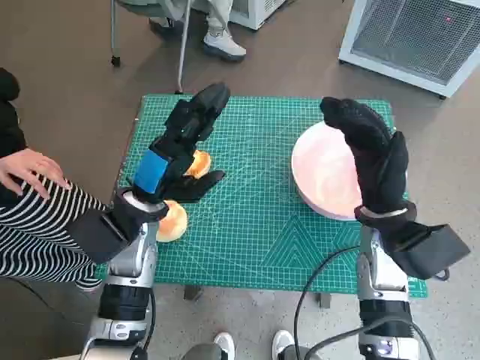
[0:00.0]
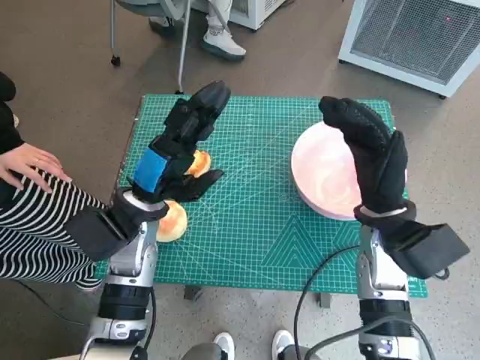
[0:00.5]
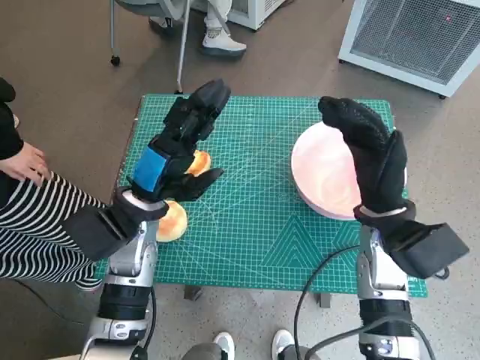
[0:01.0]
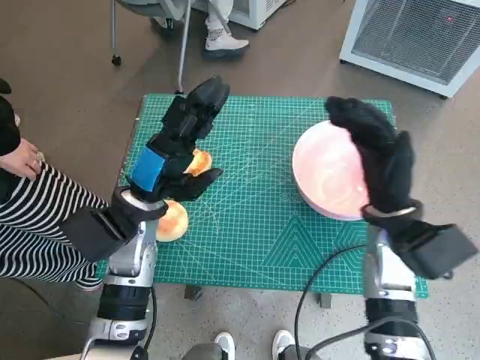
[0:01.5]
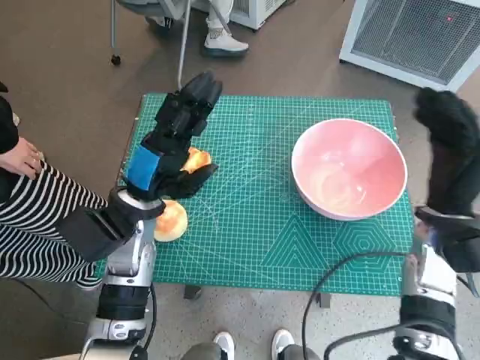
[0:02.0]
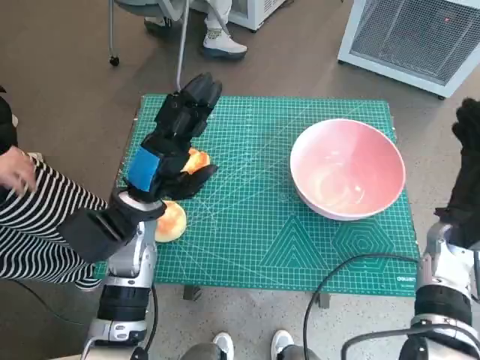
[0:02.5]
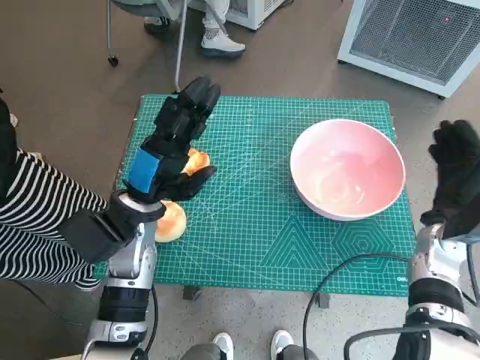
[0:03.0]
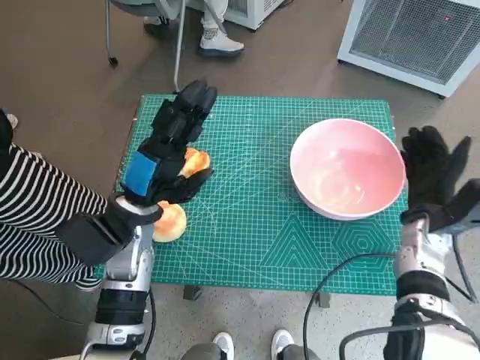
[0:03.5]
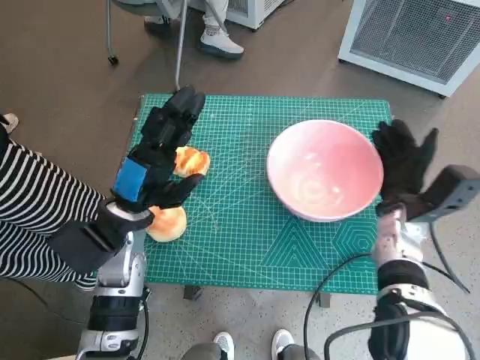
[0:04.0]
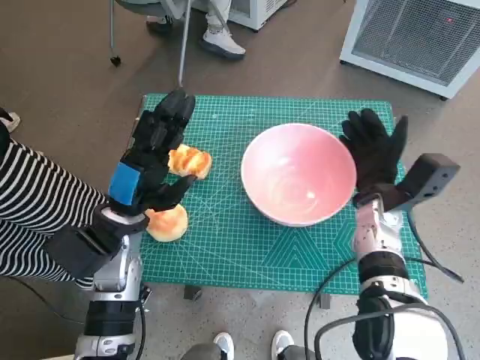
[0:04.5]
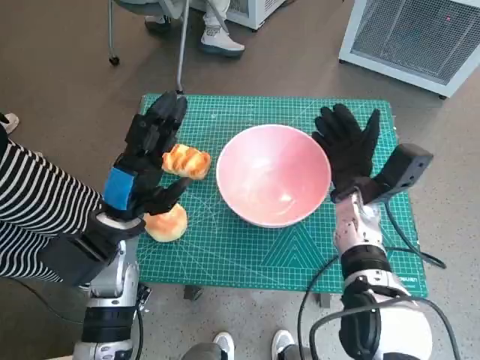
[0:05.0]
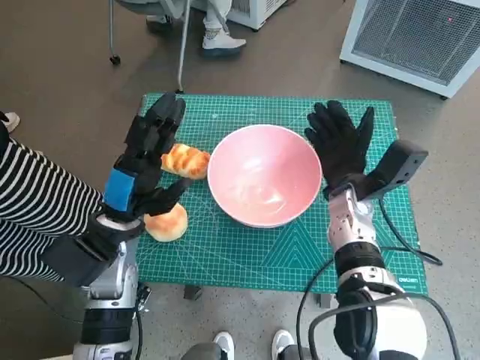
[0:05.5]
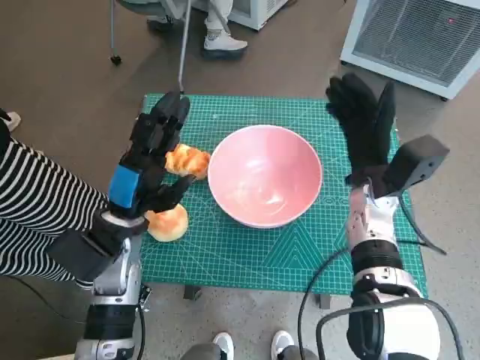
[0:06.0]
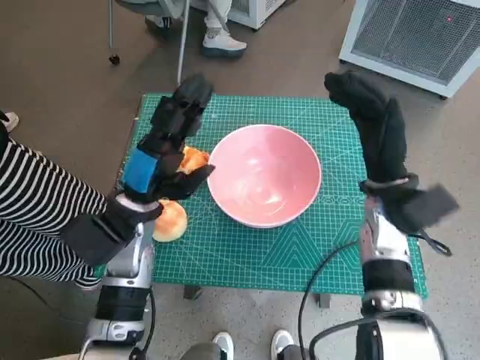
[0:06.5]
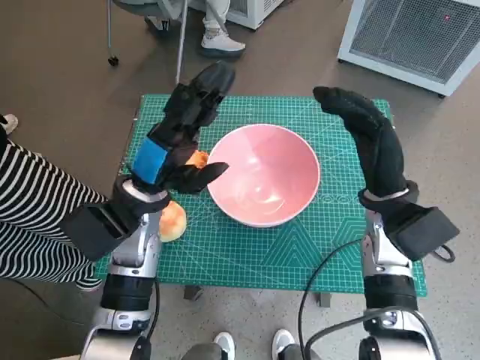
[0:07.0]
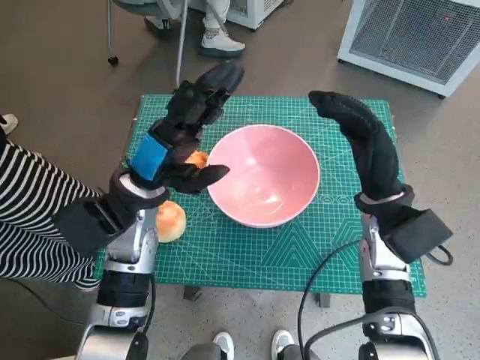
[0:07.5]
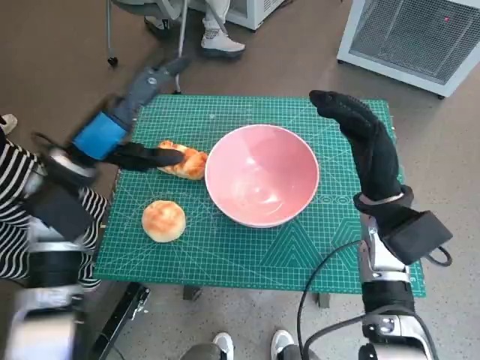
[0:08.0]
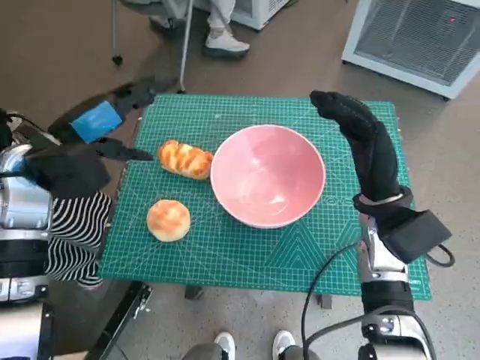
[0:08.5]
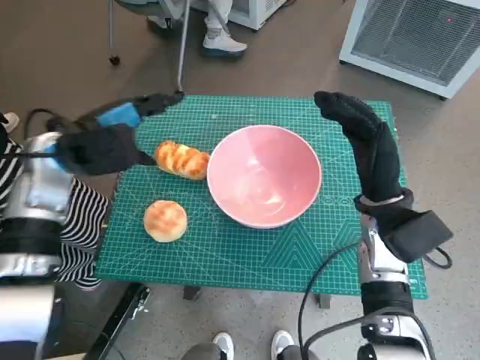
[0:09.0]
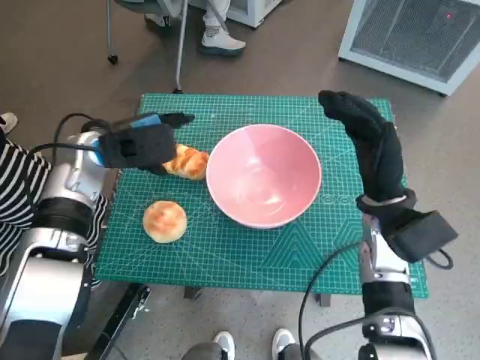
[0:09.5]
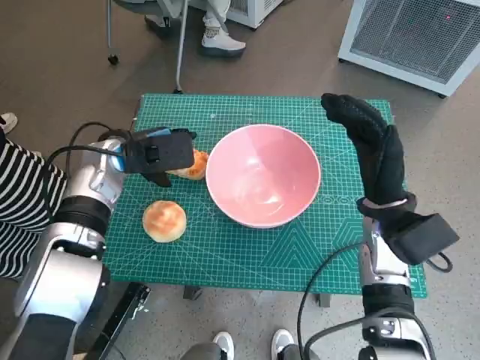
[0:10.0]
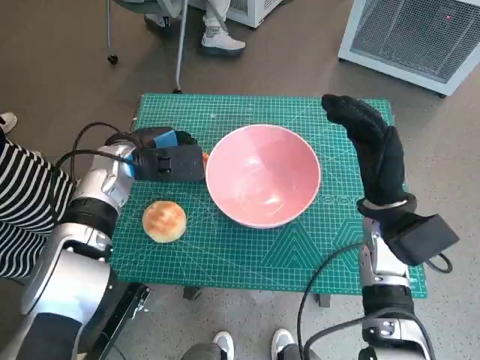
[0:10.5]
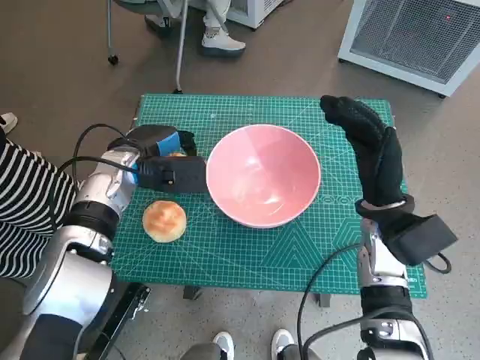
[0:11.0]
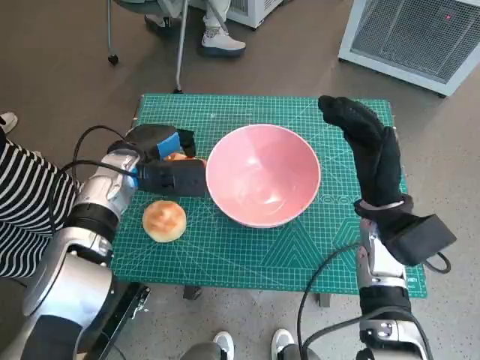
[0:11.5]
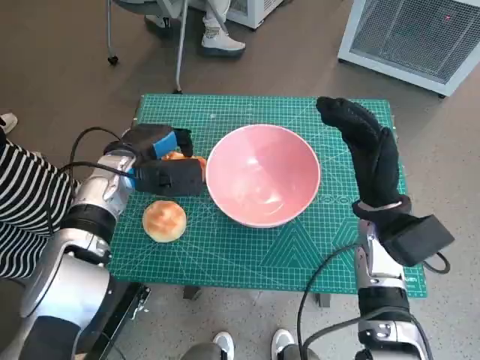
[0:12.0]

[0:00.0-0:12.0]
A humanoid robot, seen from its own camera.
Task of the whole recording: Push the bowl into the center of the table and put the bread into the bowl.
Step, 0.0 to 5.5 s: Move the pink bowl to the center of table with right hand.
2.0 to 4.0 s: The right hand goes approximately 5 cm downward.
4.0 to 6.0 s: The right hand travels to the left by roughly 5 cm.
6.0 to 8.0 s: The right hand ends up approximately 5 cm from where it was; the left hand is displaced upward by about 10 cm.
8.0 to 10.0 s: The left hand is displaced forward by roughly 5 cm.

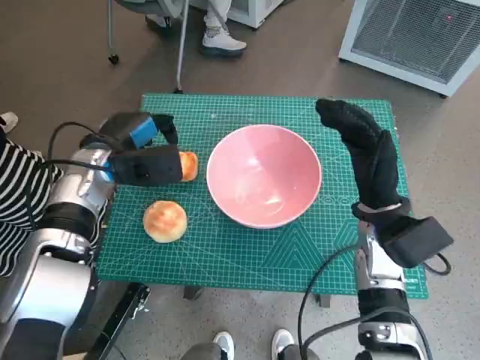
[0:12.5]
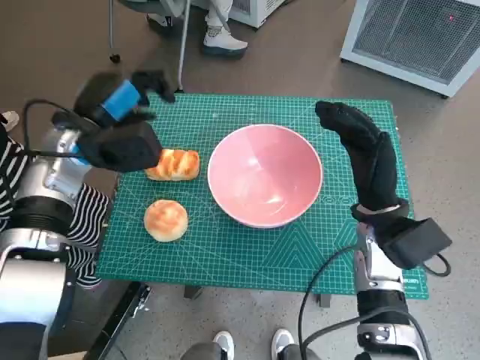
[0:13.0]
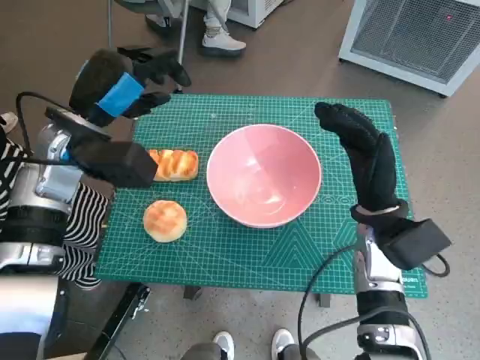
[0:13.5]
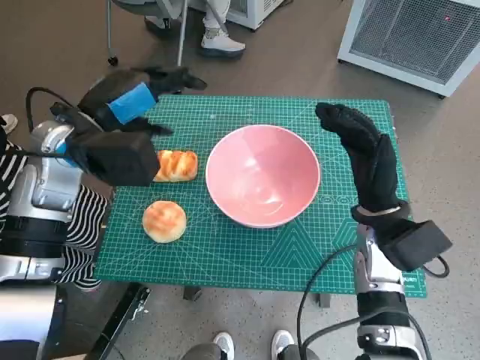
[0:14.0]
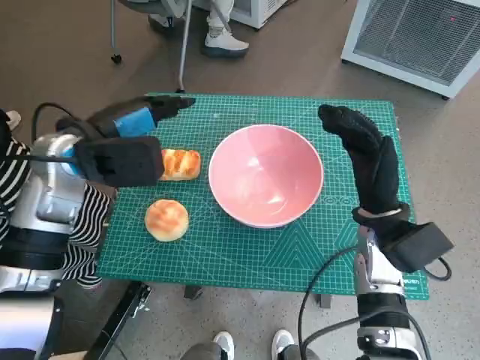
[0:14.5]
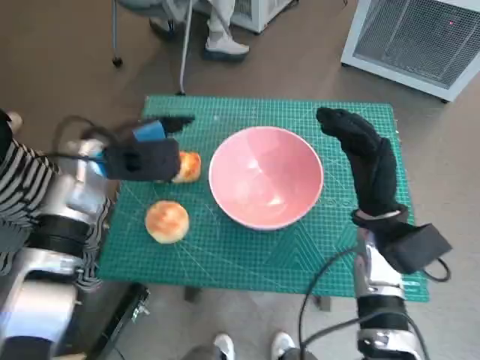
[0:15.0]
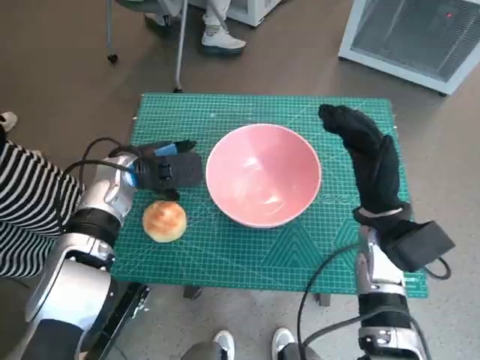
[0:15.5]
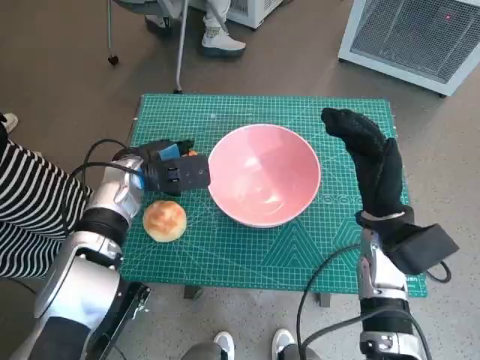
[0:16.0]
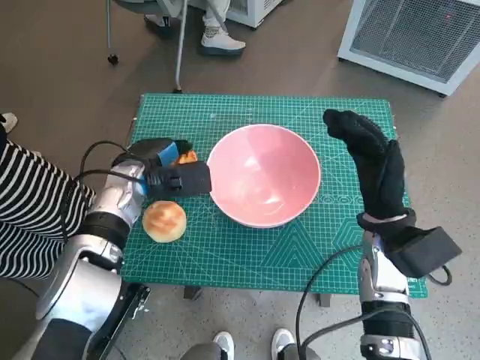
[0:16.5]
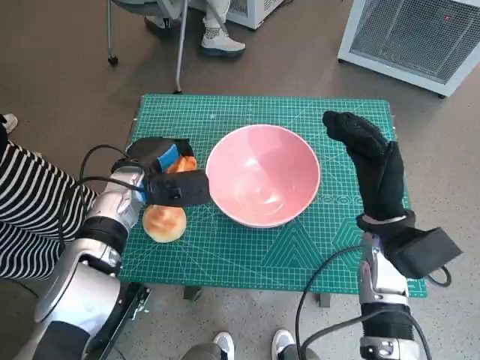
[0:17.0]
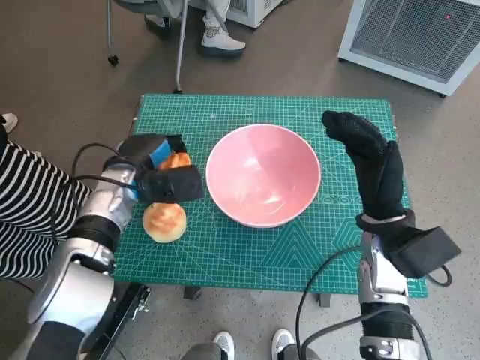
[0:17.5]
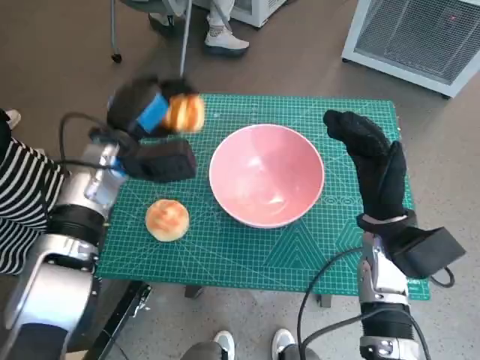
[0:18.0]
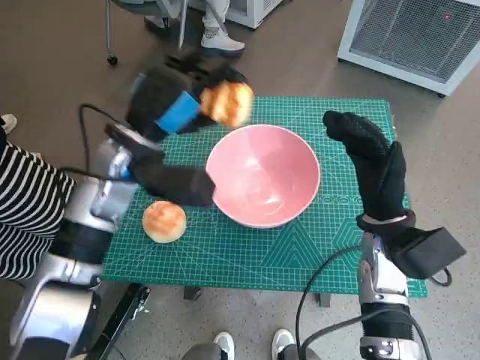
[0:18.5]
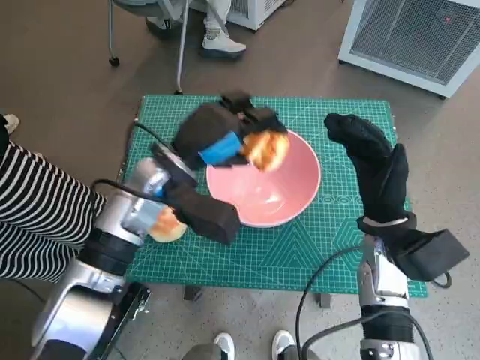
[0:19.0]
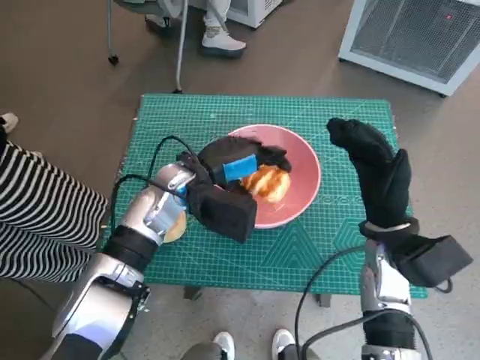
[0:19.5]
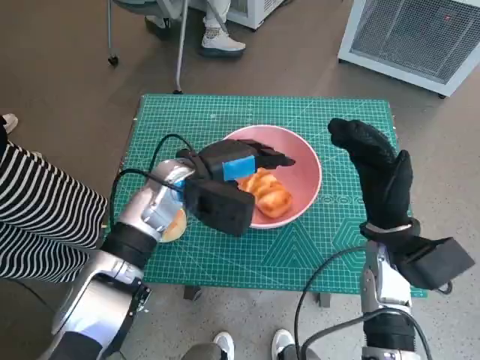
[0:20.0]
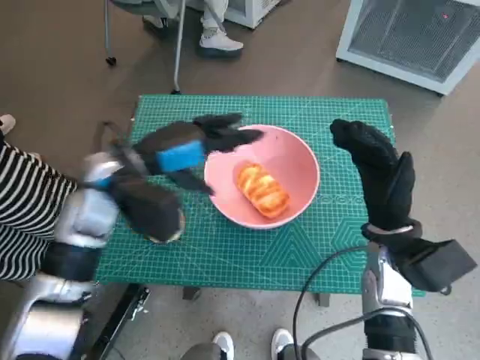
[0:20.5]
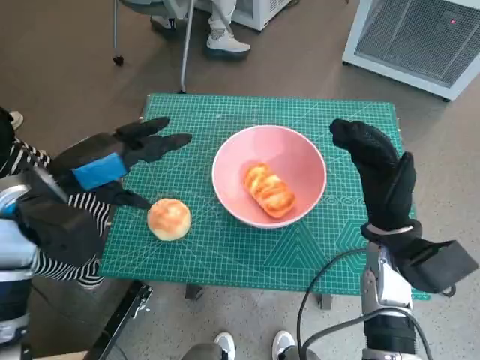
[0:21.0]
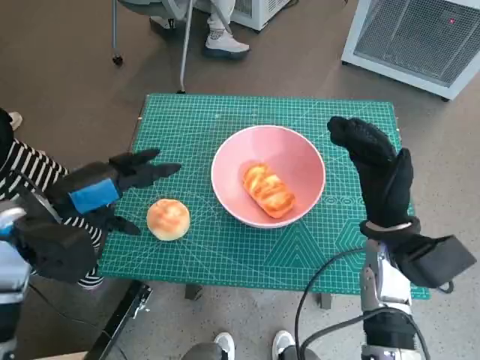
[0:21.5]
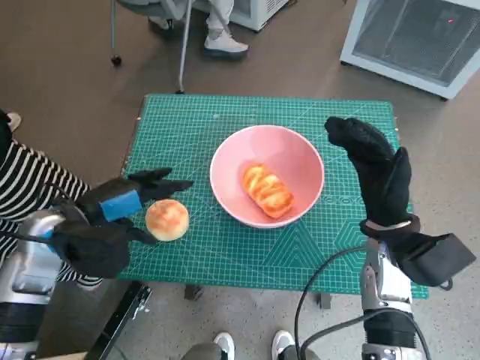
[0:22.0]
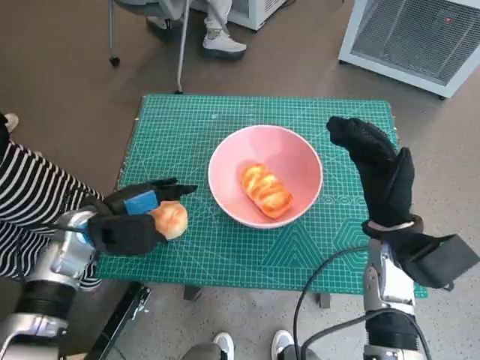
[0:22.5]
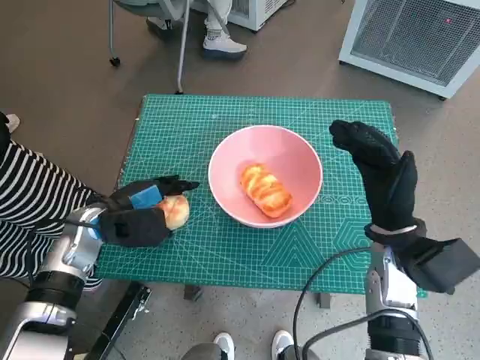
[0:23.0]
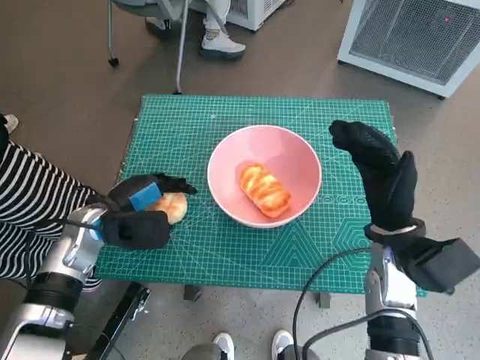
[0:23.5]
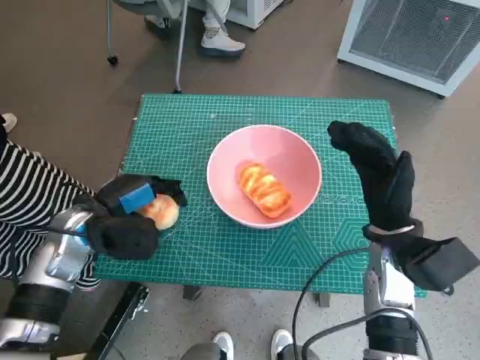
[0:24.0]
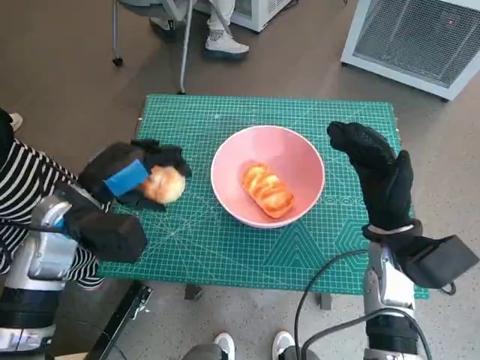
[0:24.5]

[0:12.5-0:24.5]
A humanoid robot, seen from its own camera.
Task of the whole recording: Push the bowl into the center of the table and put the bread into the bowl.
Step, 14.0 to 17.0 s: Grasp the long bread with left hand.
Step, 17.5 to 20.5 s: Place the long bread in pink bowl with left hand.
Step, 21.0 to 23.5 s: Grasp the round bread with left hand.
12.5 to 14.5 s: The left hand moves upward, about 5 cm.
14.5 to 16.5 s: The left hand moves downward, about 10 cm.
16.5 to 18.5 s: The left hand shifts roughly 10 cm upward.
20.5 to 22.5 s: The left hand shifts roughly 10 cm downward and to the left.
22.5 to 24.5 s: The left hand is displaced upward by about 5 cm.

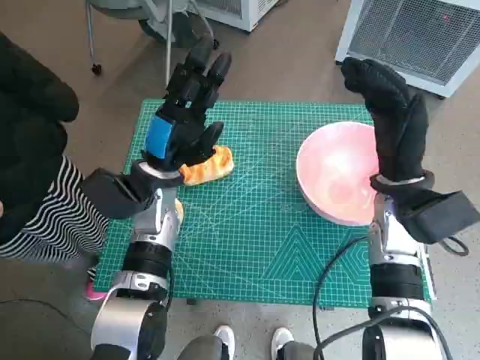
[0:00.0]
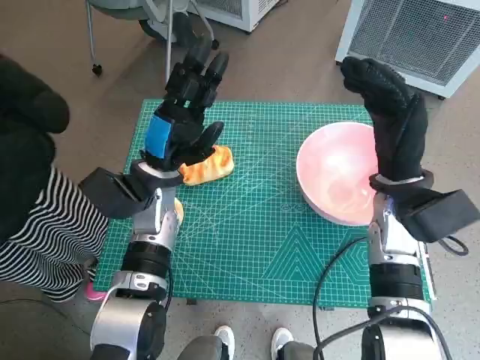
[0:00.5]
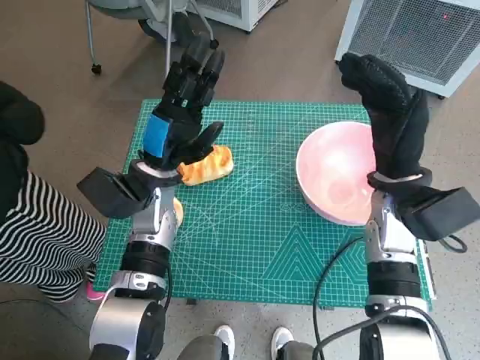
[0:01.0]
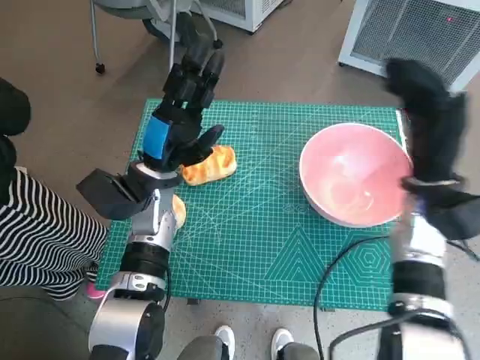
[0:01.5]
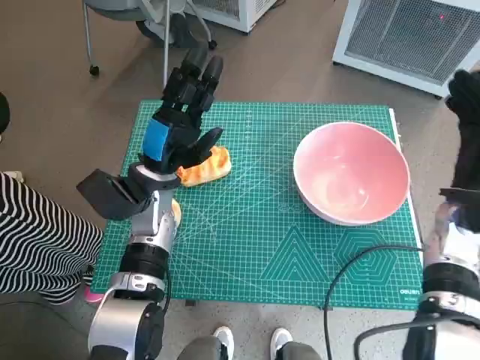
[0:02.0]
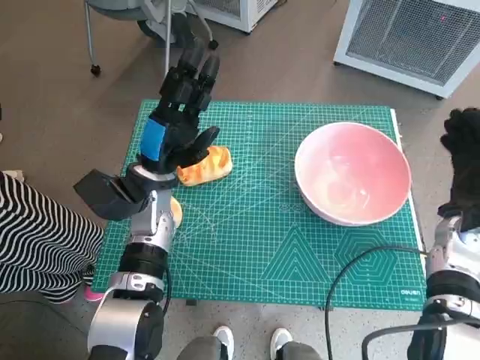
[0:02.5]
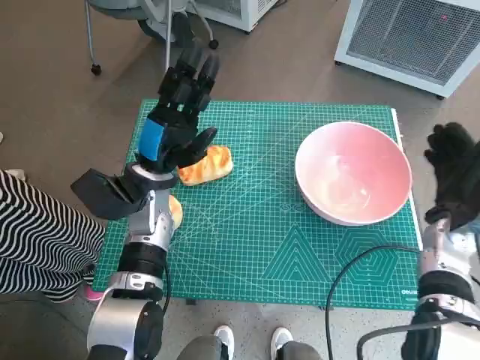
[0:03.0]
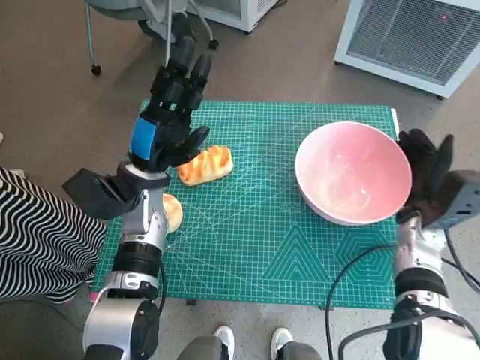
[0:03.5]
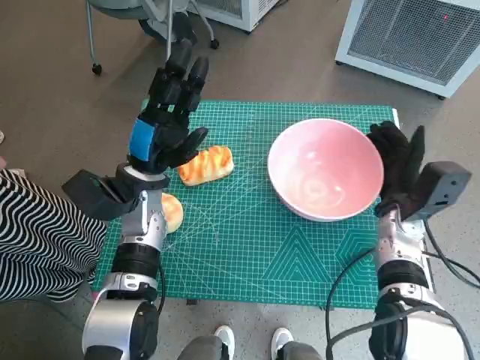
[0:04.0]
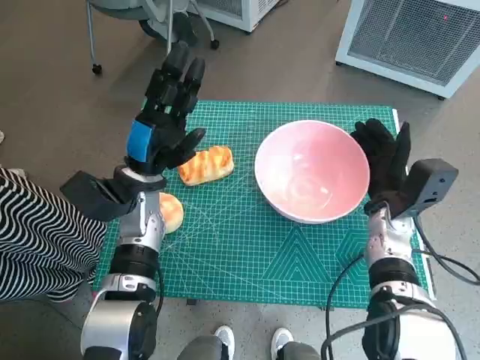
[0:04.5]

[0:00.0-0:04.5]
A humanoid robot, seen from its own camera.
Task of the whole recording: Push the bowl into the center of the table and put the bread into the bowl.
2.0 to 4.5 s: The right hand moves to the left and downward, approximately 10 cm.
